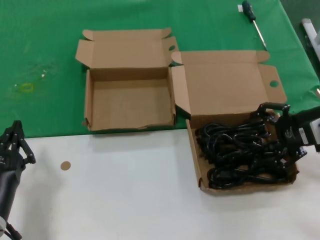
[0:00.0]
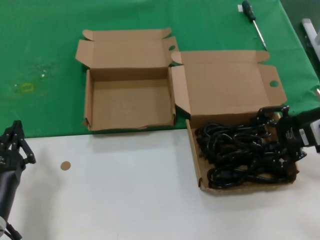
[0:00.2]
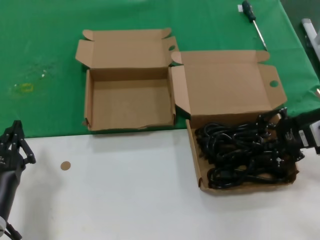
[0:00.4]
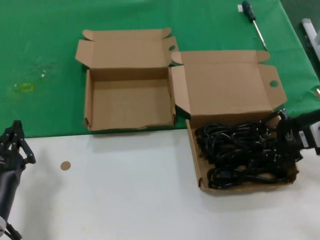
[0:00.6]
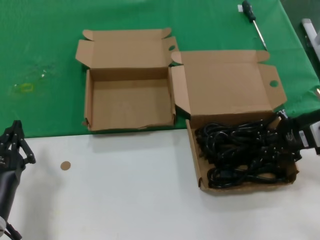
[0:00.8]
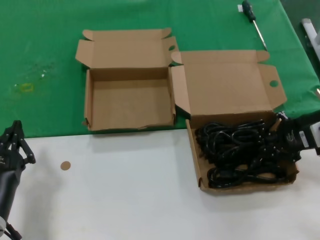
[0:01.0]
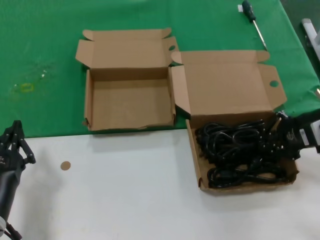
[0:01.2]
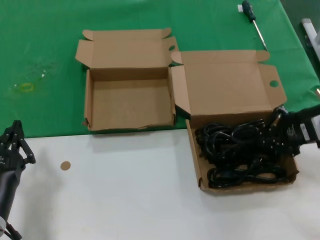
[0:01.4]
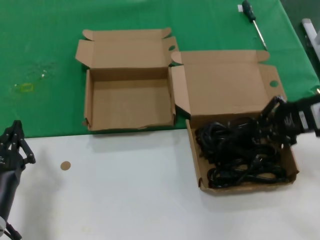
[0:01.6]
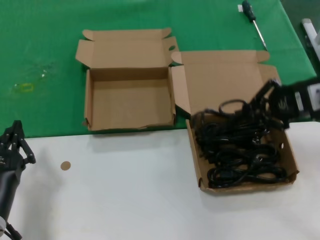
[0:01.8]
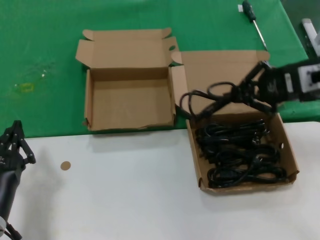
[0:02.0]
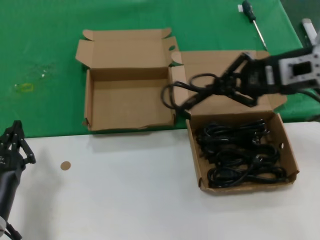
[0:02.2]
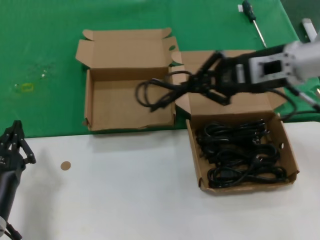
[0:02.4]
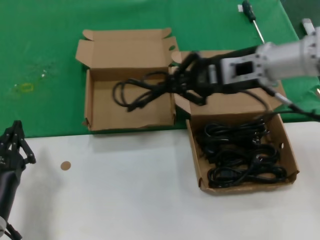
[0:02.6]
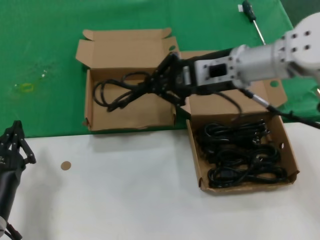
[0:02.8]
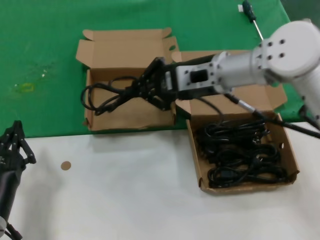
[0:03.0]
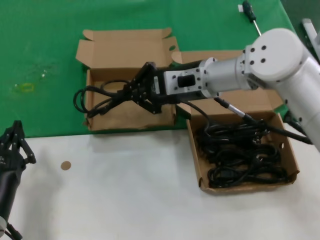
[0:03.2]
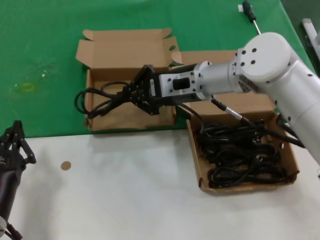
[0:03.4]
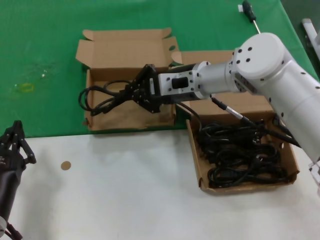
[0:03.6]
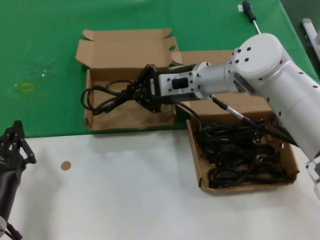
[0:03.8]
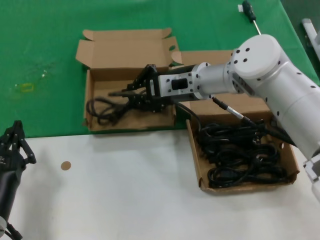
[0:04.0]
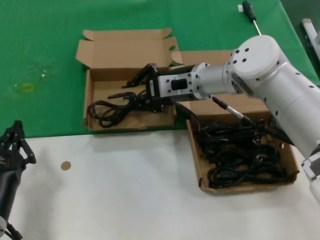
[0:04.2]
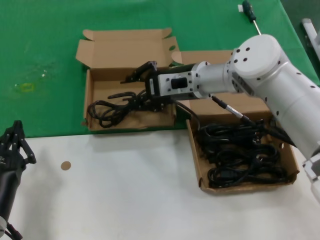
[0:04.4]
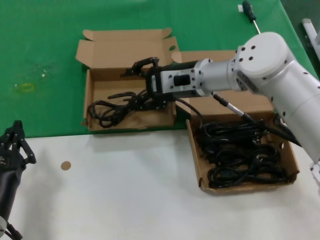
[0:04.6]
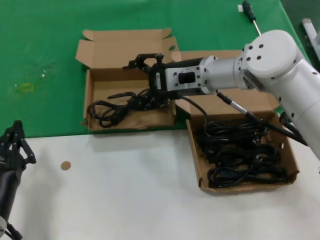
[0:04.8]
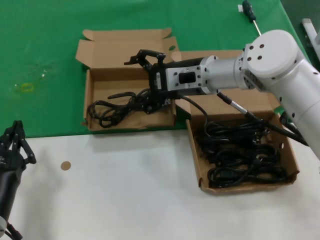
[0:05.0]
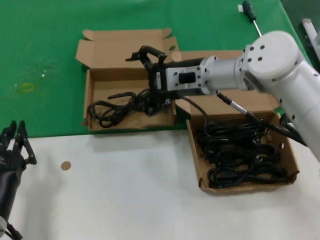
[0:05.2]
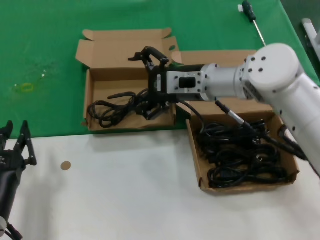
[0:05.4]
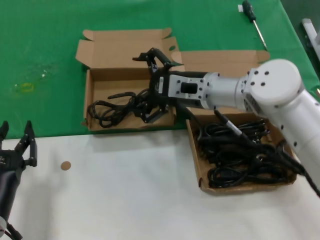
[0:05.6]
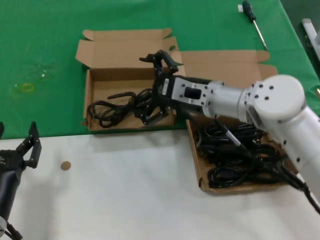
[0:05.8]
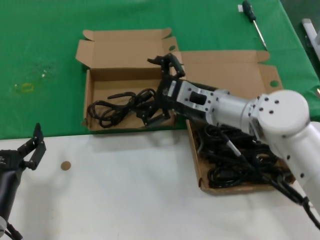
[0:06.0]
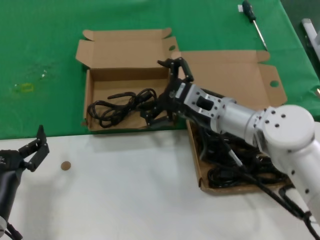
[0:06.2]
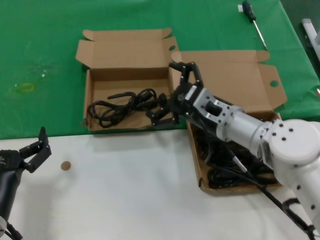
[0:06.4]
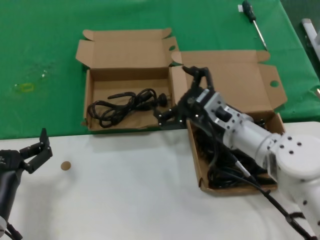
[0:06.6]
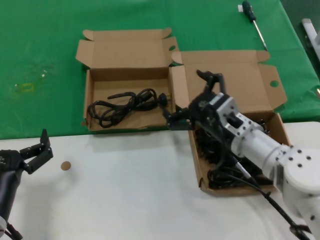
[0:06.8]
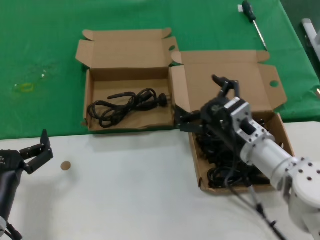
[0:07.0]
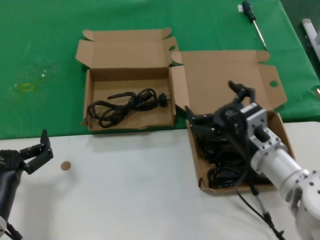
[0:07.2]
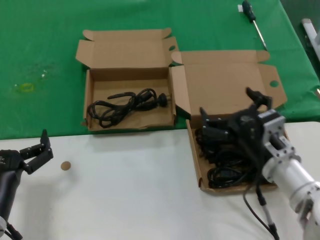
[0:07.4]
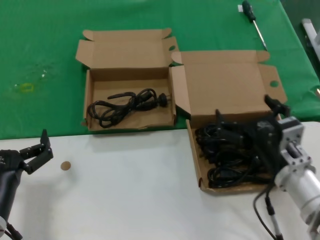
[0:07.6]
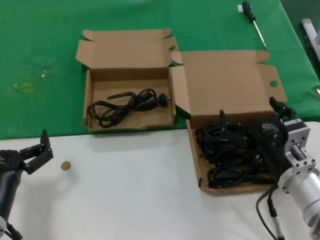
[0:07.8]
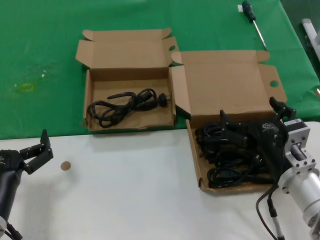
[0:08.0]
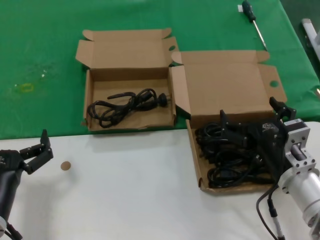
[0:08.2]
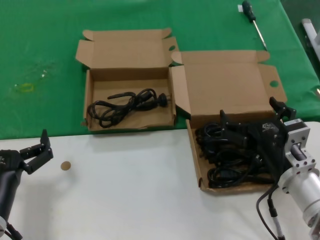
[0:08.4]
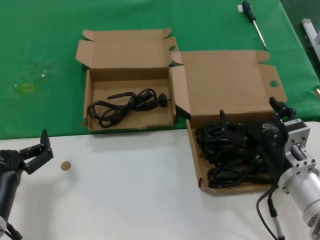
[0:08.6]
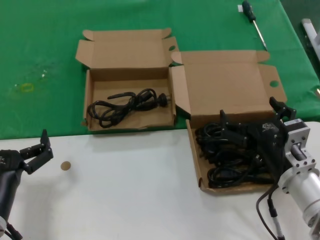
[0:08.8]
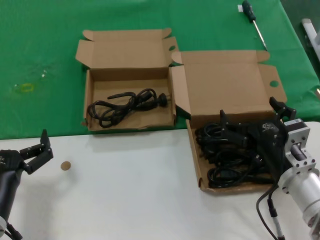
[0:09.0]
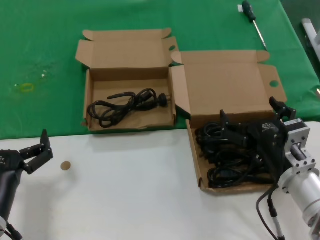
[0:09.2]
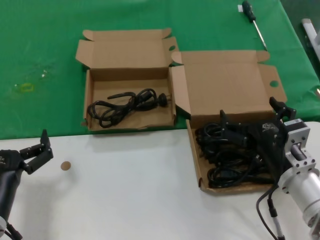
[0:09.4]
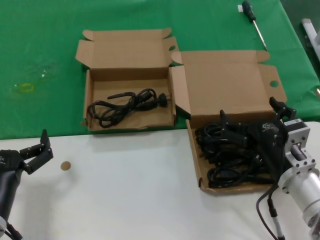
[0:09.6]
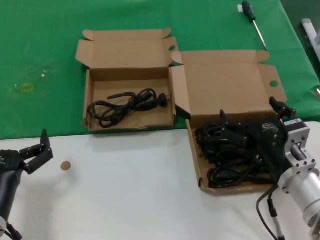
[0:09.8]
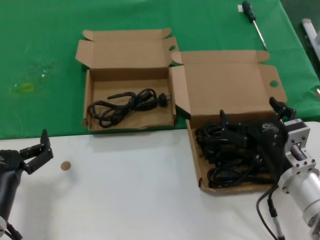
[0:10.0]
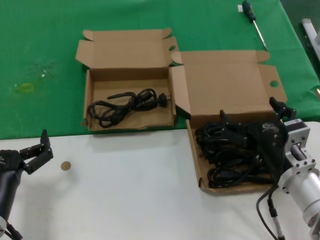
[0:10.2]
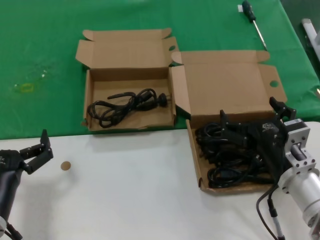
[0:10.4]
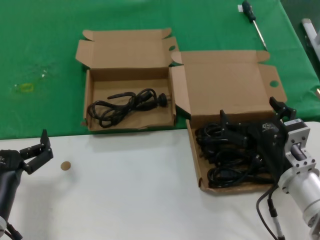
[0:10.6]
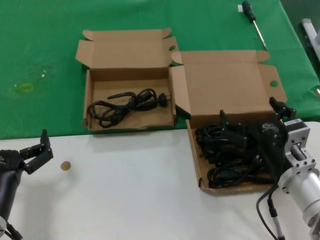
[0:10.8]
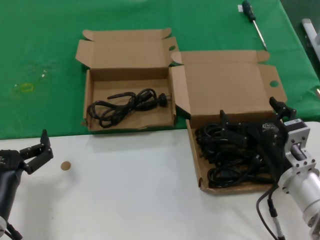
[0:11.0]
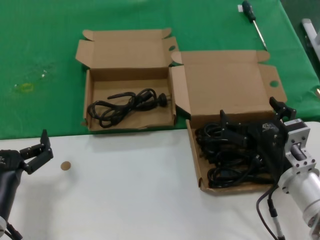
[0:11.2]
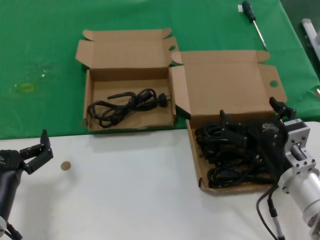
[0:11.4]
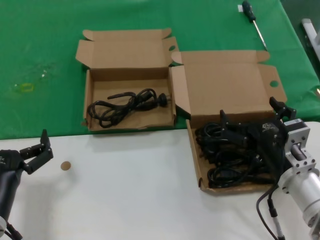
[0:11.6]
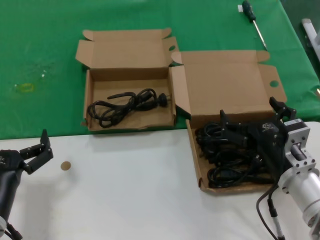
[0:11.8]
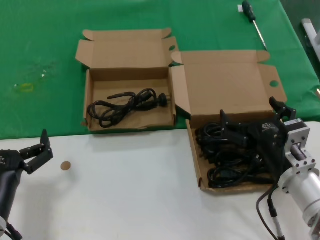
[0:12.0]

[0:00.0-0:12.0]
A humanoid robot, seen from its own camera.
Task of the whole recording: take the parts from the box containing them and put them into an empty box.
Step, 0:01.0 to 0:05.0: Place the data cable in the another box.
0:00.0 to 0:01.6: There are only small adjustments of the hands.
0:01.6 to 0:03.0: The right hand moves to the left, about 20 cm.
0:03.0 to 0:04.4: The right hand shifts by about 5 cm.
0:04.4 to 0:06.0: The right hand heads backward and downward, covering some 10 cm.
0:06.0 to 0:07.6: The right hand shifts approximately 20 cm backward, downward and to the right.
0:07.6 to 0:12.0: Both hands stay put.

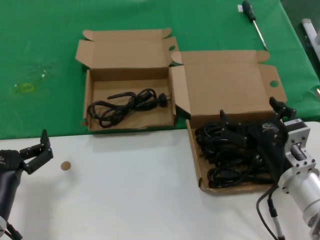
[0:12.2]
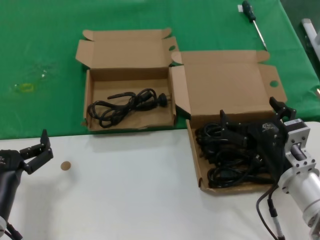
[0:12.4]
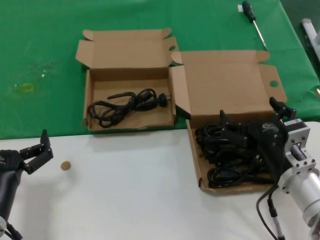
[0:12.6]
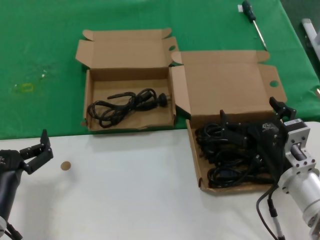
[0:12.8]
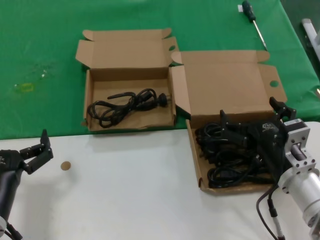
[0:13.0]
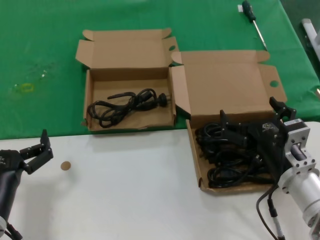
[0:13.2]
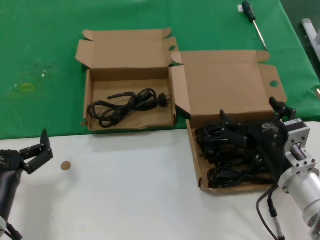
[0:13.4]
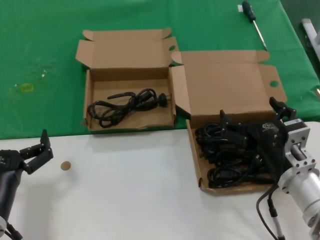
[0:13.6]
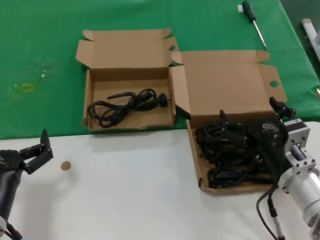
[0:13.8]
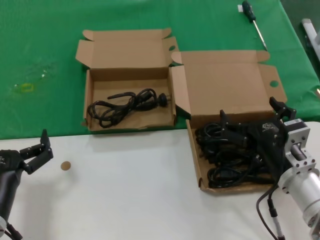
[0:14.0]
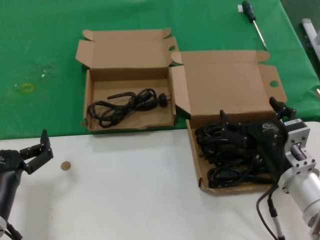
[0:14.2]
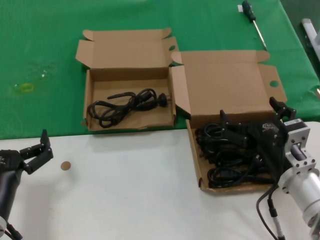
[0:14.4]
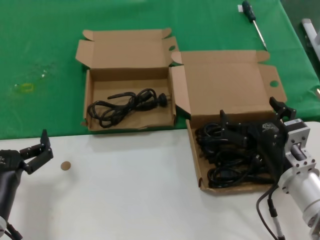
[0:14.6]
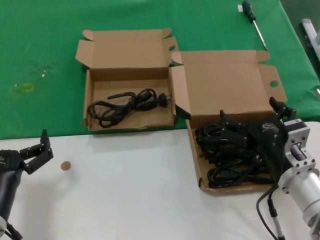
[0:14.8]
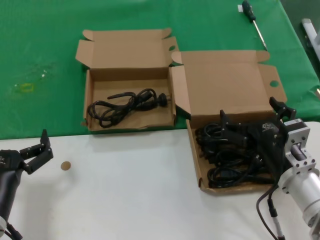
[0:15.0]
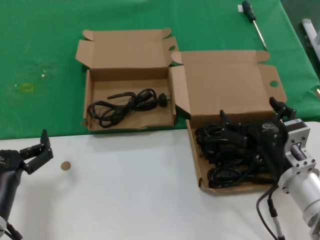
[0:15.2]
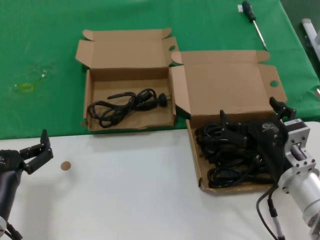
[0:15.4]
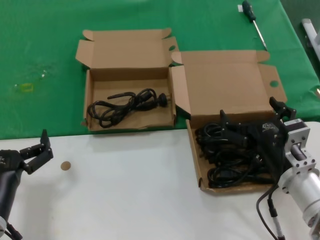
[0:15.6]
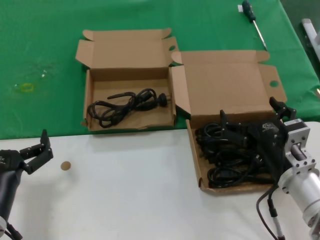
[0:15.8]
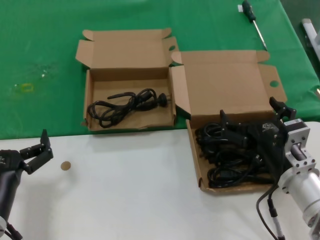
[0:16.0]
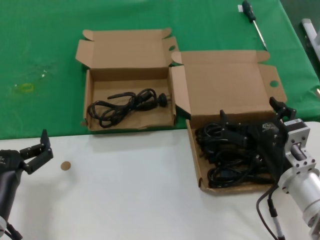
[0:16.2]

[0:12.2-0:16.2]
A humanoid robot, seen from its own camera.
Task of the whole recording: take the parts from the box containing them and put them into an empty box.
0:12.2 to 0:16.2: Neither hand changes place.

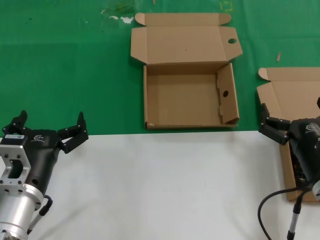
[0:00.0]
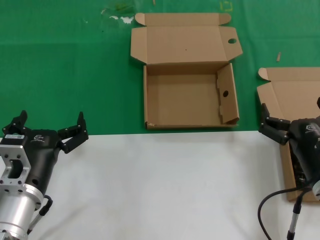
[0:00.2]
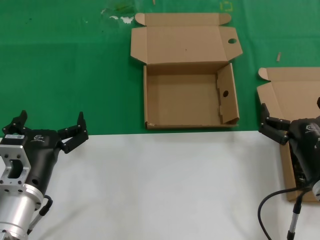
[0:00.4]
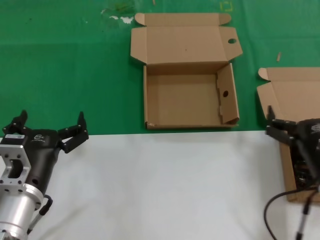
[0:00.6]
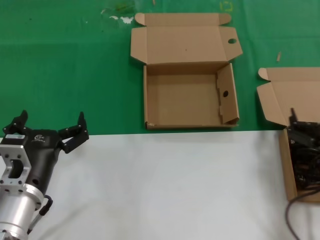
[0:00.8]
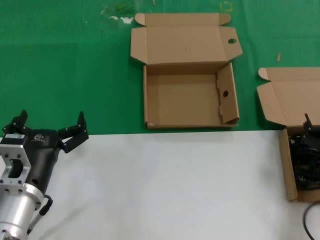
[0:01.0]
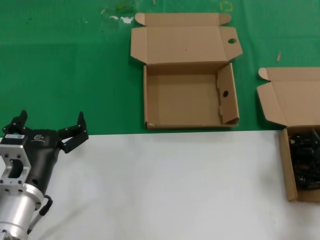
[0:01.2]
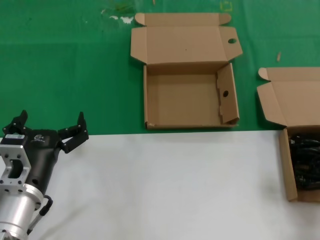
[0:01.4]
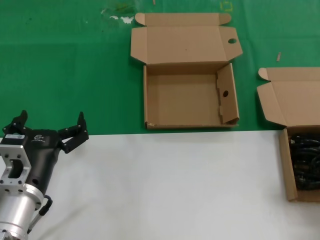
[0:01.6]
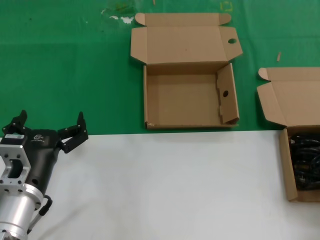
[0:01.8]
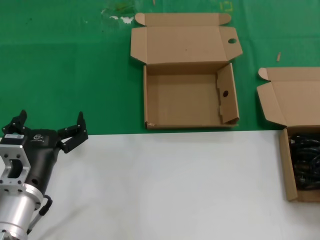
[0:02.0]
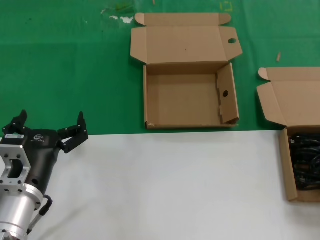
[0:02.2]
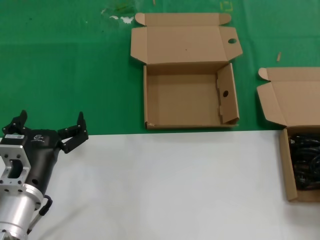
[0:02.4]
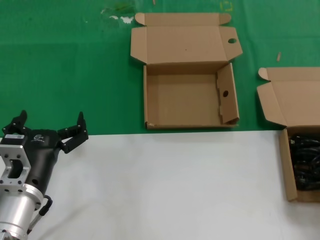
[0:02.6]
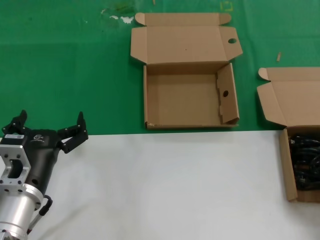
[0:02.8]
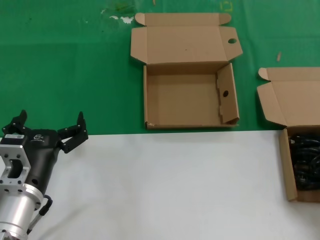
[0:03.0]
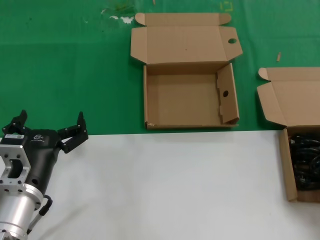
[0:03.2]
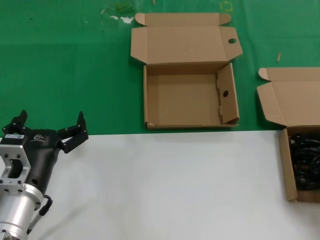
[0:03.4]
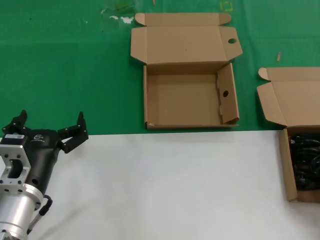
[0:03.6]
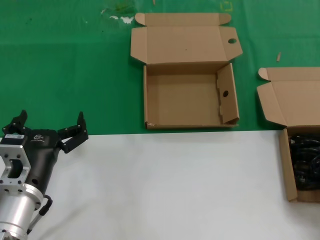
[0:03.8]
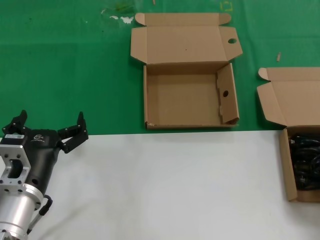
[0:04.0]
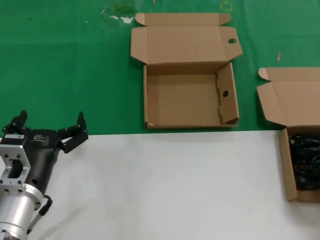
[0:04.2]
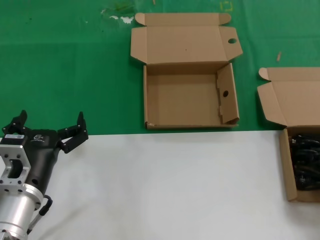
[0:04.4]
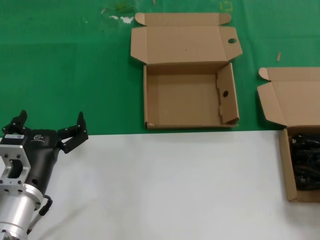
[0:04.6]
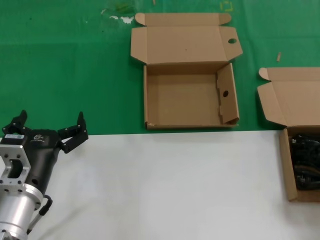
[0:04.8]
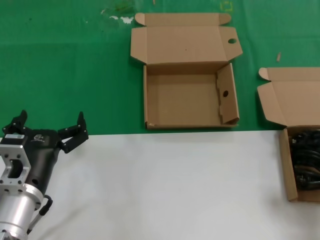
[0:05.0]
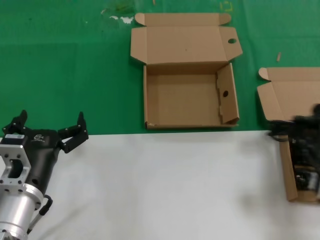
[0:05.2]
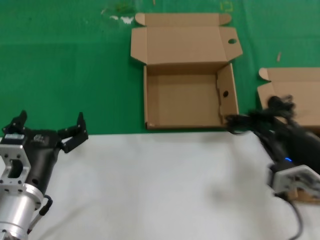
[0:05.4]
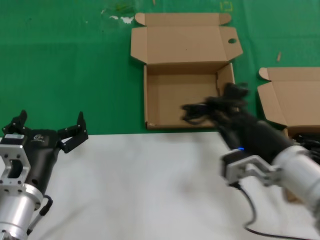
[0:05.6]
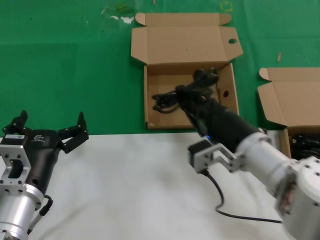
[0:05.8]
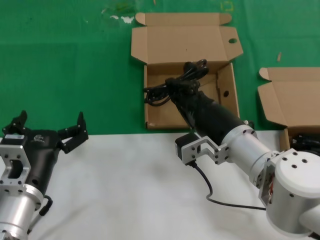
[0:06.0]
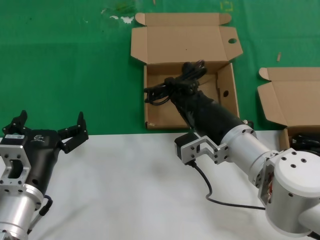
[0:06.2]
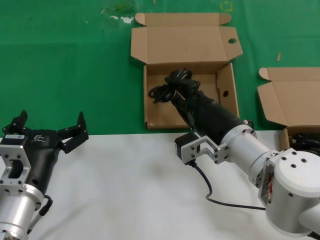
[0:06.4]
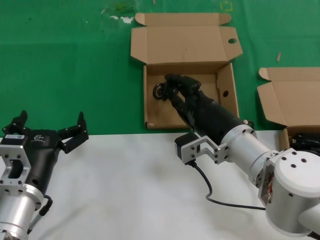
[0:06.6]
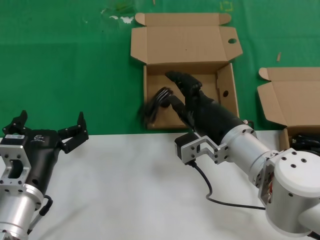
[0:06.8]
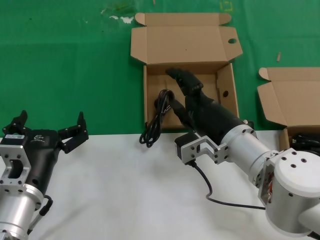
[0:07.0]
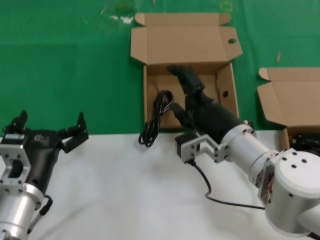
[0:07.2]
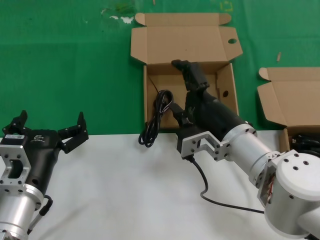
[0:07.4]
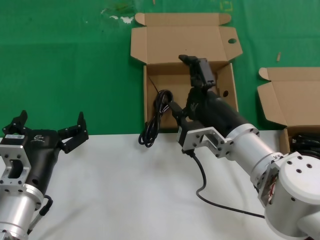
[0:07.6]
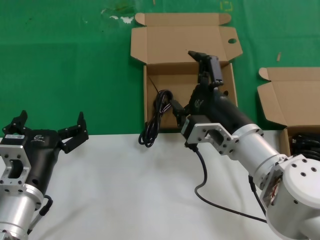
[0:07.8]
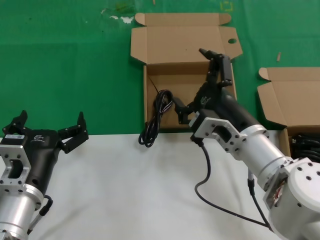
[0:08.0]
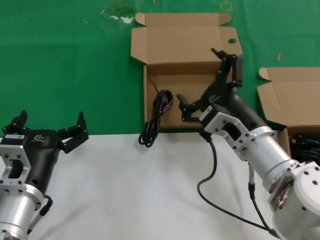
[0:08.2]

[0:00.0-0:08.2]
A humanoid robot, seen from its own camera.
Task of the whole recording: take the parts from the box containing them and put them into an empty box.
Step, 0:00.0 to 0:04.6: Grasp the data cable.
Step, 0:04.8 to 0:07.4: Place the data cable in the another box.
0:00.0 to 0:01.6: The right hand shifts about 15 cm to the right, upward and backward.
0:03.2 to 0:05.0: The right hand moves roughly 5 cm.
0:05.0 to 0:06.6: The right hand is displaced to the left and forward by about 25 cm.
